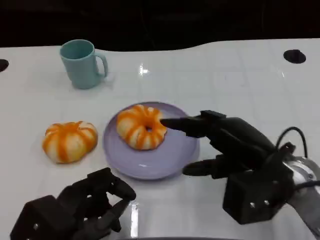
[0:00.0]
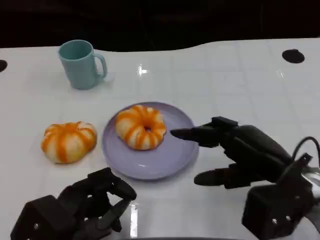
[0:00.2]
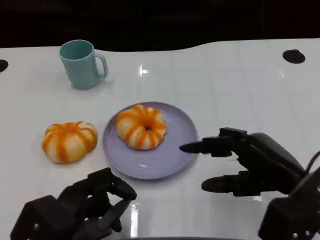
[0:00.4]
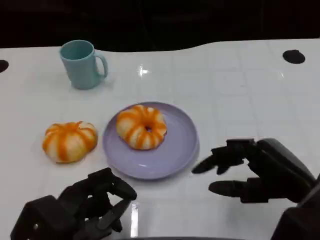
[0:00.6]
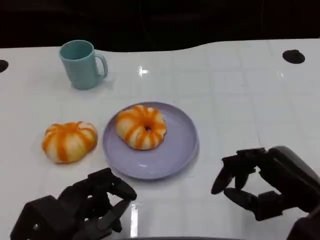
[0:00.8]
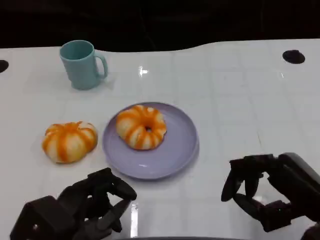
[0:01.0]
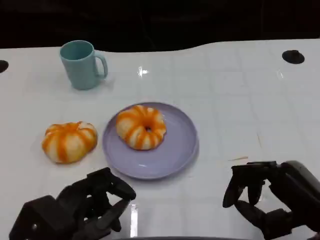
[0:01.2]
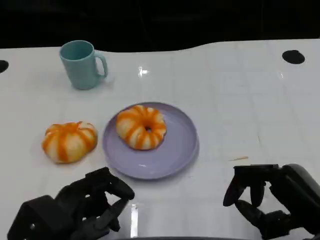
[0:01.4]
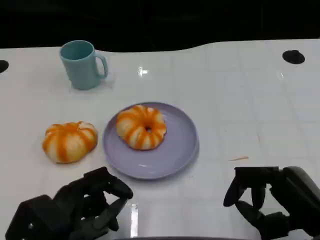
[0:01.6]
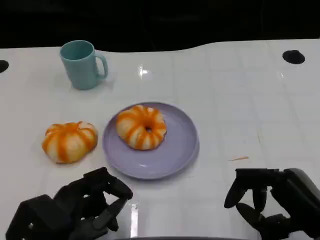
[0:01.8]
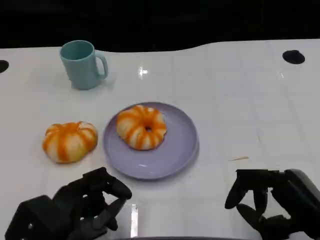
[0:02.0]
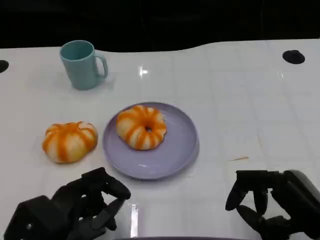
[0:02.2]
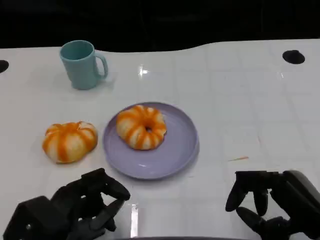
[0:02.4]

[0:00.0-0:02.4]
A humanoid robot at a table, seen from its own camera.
Task of the whole recording: Grasp the bread from the table and place it into the plate.
0:00.0 to 0:01.2: The right hand is displaced backward and to the right by approximately 10 cm.
0:01.2 to 0:02.4: The hands make only small movements.

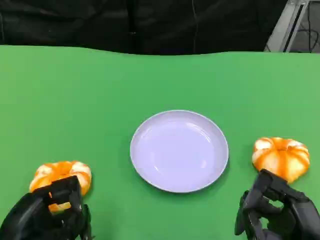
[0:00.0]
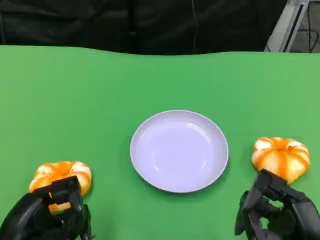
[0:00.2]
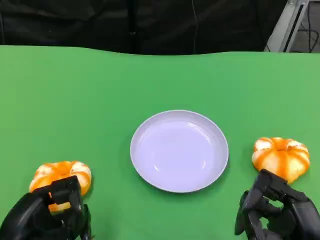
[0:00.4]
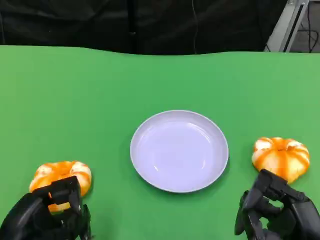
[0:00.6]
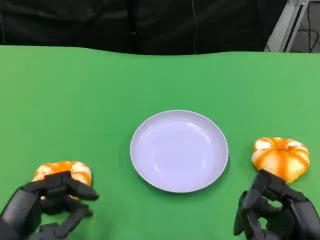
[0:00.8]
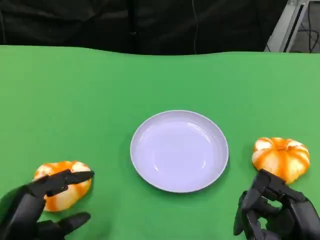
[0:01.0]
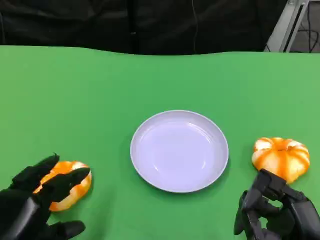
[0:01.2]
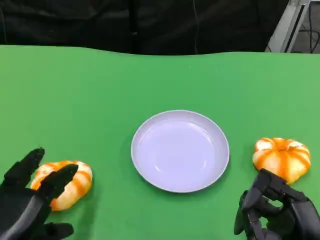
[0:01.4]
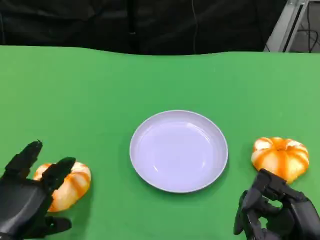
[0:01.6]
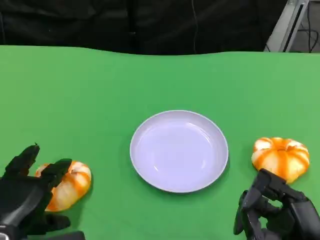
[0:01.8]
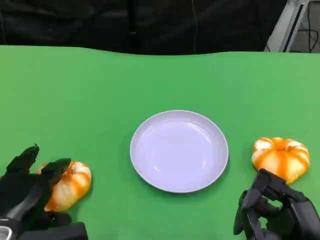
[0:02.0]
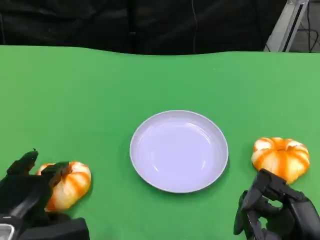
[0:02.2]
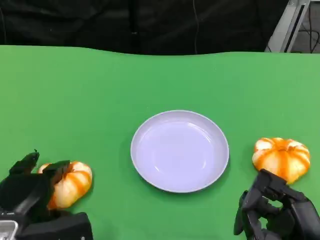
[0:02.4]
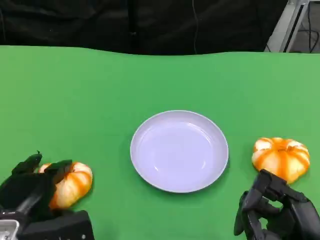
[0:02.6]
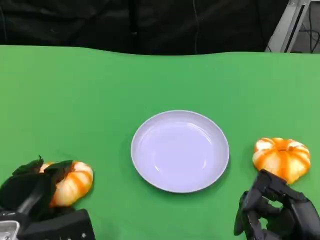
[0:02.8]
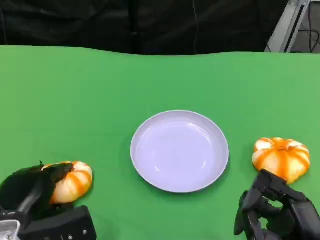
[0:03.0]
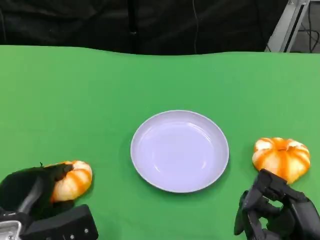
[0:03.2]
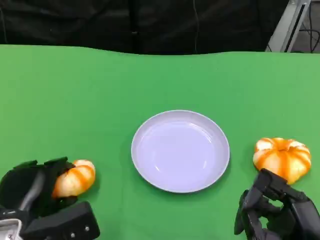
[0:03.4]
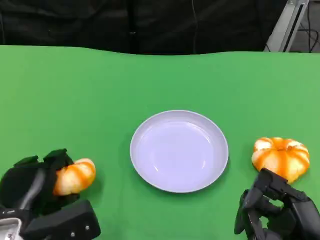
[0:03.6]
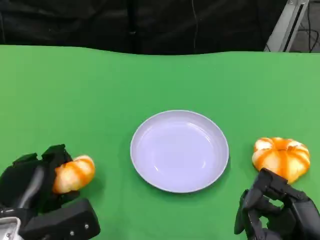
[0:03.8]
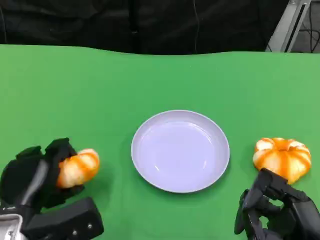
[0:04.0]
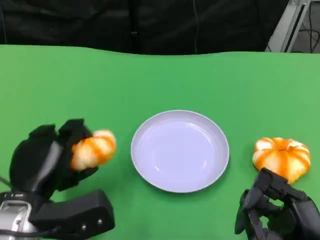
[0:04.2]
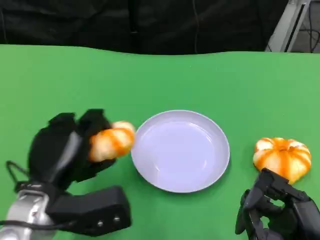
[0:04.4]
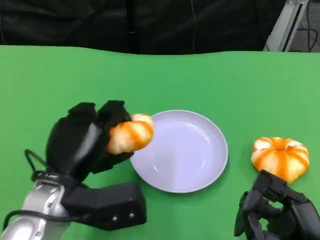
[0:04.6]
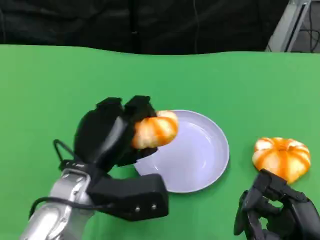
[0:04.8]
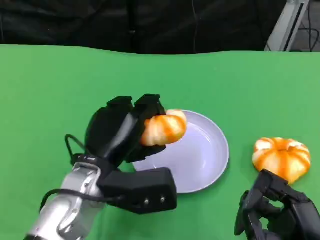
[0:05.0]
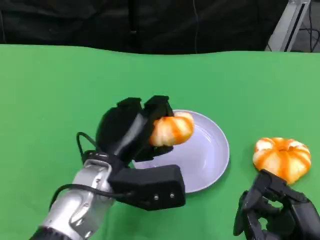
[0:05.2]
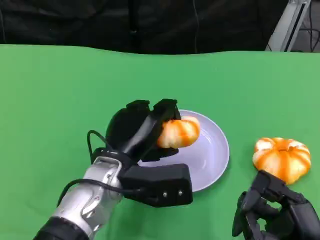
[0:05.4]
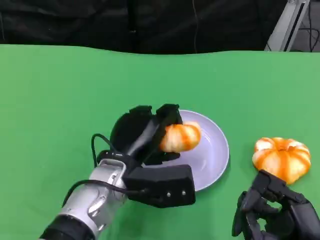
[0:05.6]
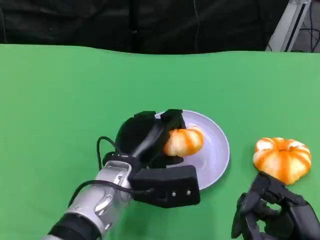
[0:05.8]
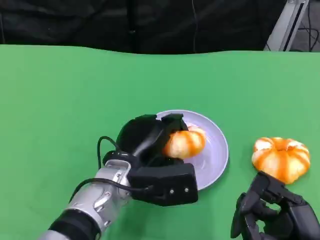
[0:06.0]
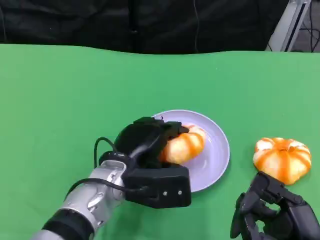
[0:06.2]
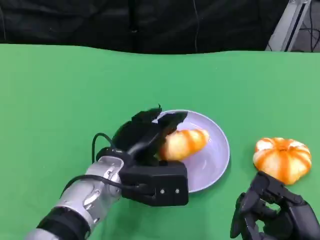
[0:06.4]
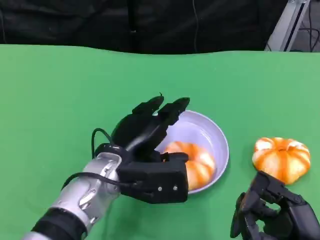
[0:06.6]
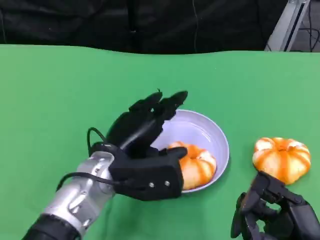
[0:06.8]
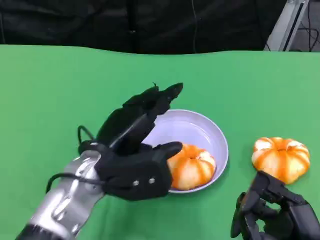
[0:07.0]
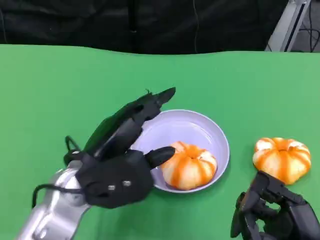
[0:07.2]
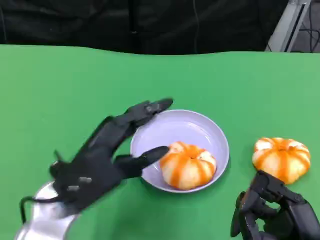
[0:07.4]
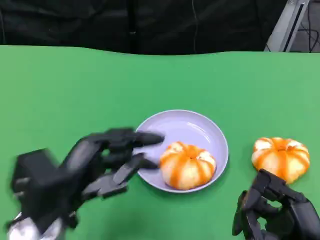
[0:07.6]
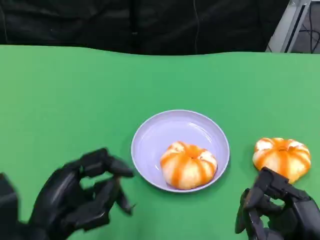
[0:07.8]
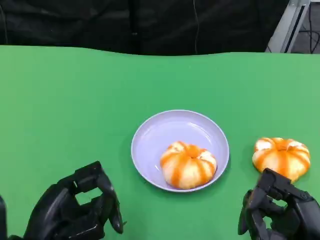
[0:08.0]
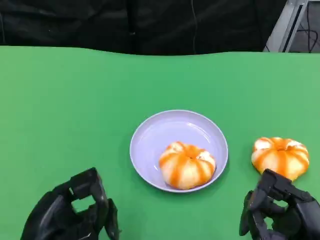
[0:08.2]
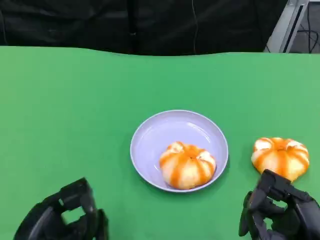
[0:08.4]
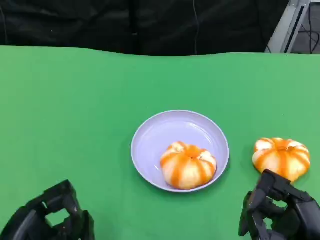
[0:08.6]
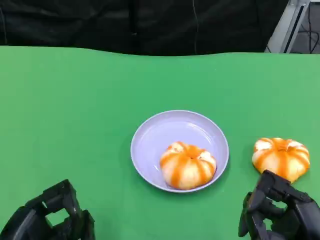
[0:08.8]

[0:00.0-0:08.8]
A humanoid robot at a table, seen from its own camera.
Task of the whole recording: Grasp the bread from the table and place it into the plate.
0:01.4 to 0:03.0: The left hand moves forward, some 5 cm.
0:03.0 to 0:04.4: The left hand heads upward and to the right, covering about 10 cm.
0:04.4 to 0:05.8: The left hand shifts about 10 cm to the right.
0:05.8 to 0:07.4: The left hand goes roughly 10 cm to the left, upward and backward.
0:07.4 to 0:08.8: The left hand goes about 15 cm backward, to the left and downward.

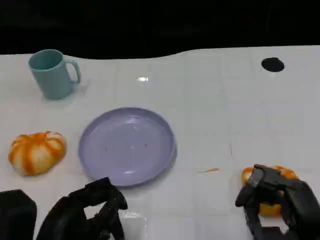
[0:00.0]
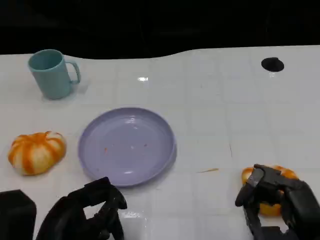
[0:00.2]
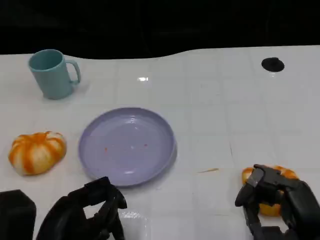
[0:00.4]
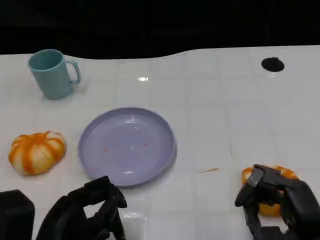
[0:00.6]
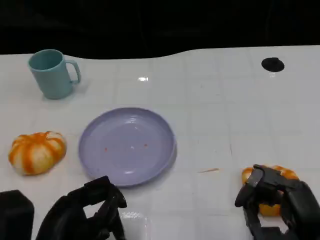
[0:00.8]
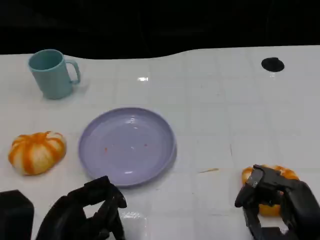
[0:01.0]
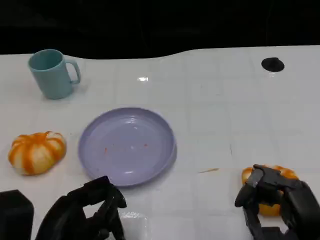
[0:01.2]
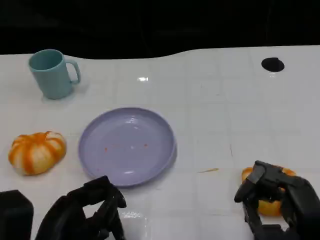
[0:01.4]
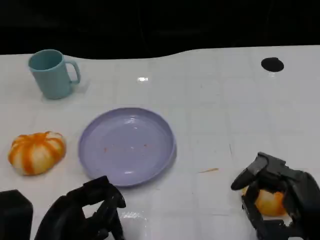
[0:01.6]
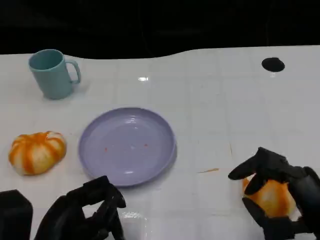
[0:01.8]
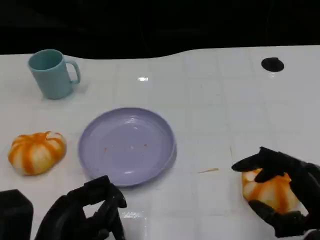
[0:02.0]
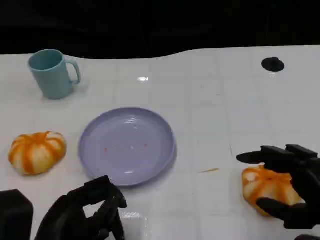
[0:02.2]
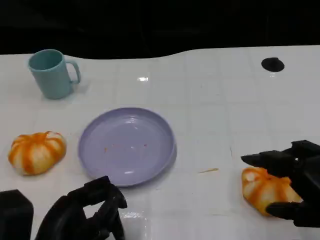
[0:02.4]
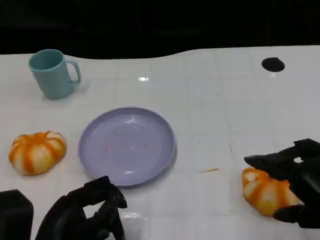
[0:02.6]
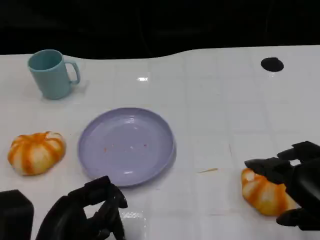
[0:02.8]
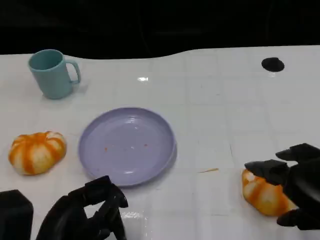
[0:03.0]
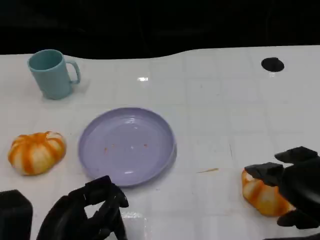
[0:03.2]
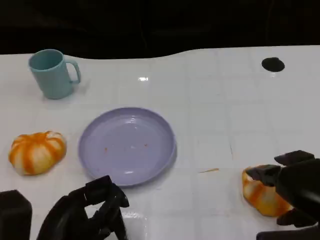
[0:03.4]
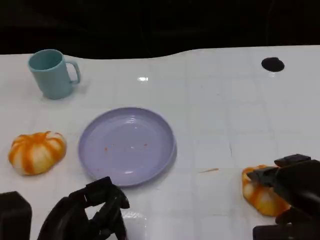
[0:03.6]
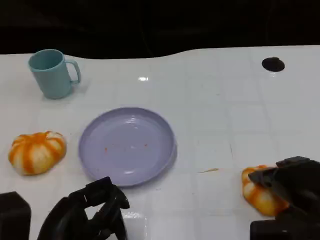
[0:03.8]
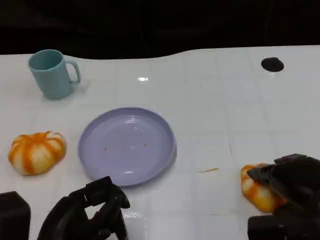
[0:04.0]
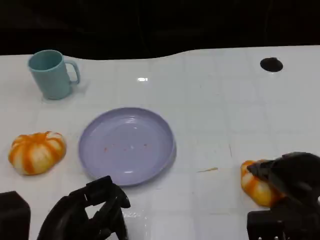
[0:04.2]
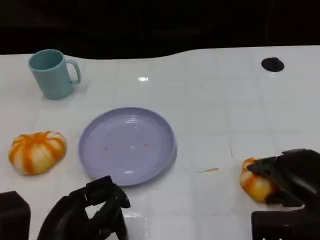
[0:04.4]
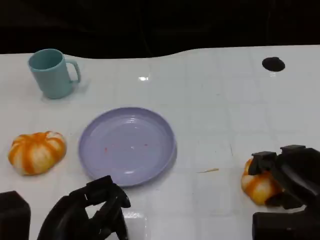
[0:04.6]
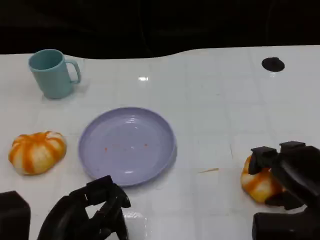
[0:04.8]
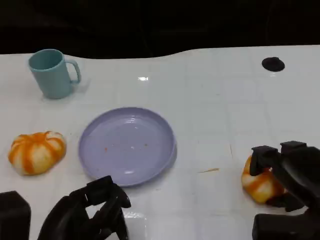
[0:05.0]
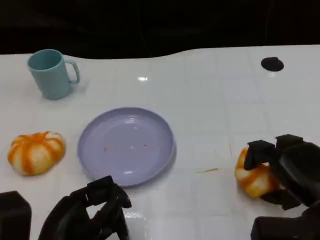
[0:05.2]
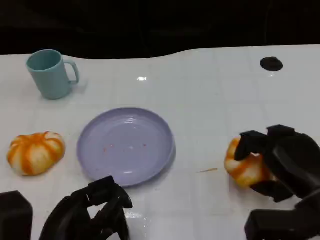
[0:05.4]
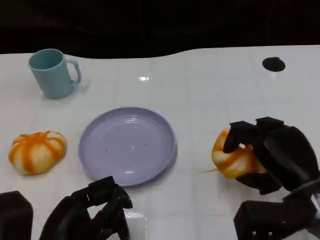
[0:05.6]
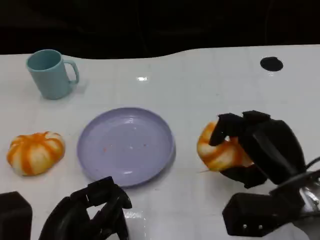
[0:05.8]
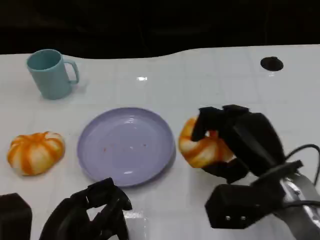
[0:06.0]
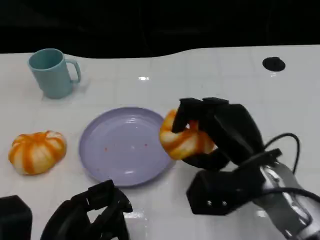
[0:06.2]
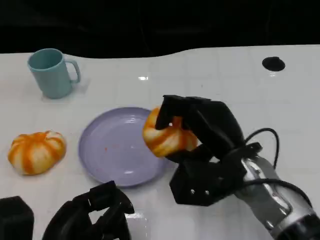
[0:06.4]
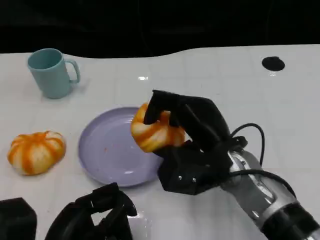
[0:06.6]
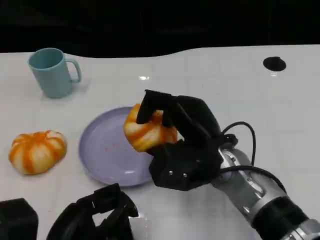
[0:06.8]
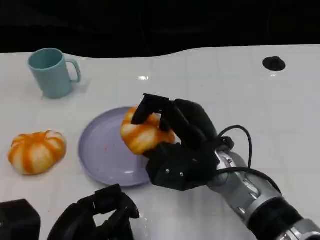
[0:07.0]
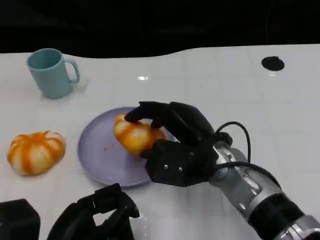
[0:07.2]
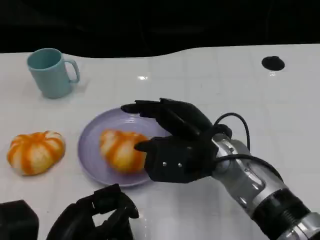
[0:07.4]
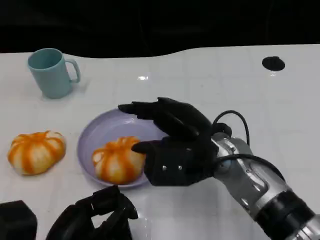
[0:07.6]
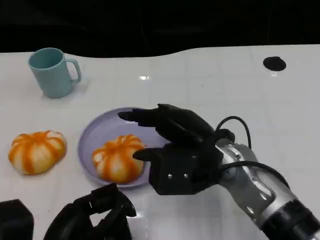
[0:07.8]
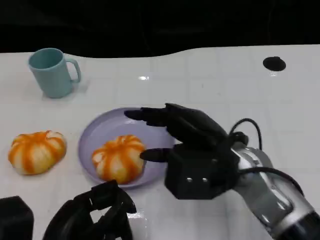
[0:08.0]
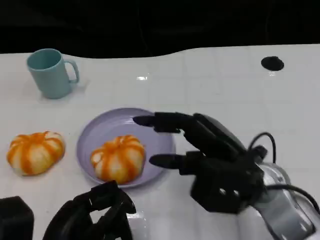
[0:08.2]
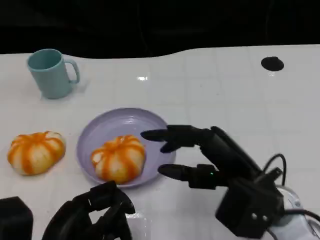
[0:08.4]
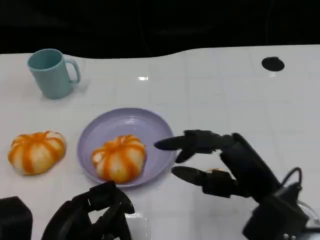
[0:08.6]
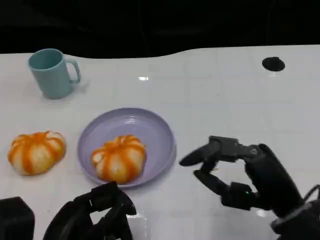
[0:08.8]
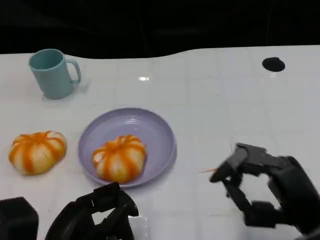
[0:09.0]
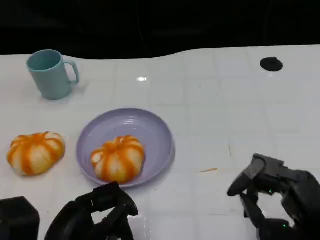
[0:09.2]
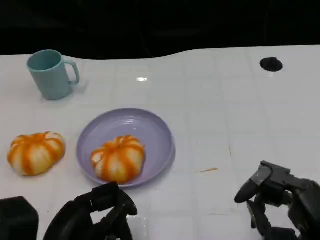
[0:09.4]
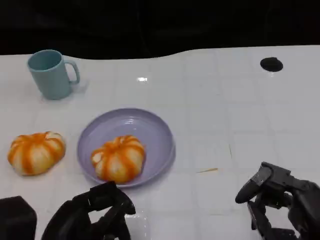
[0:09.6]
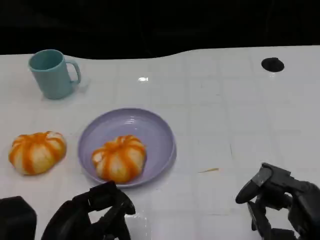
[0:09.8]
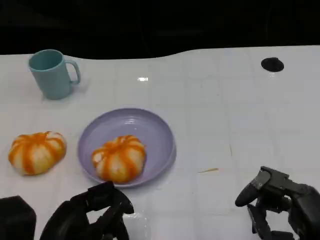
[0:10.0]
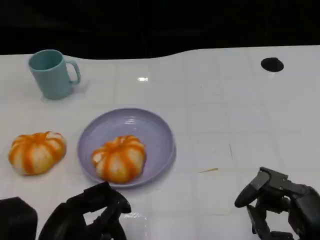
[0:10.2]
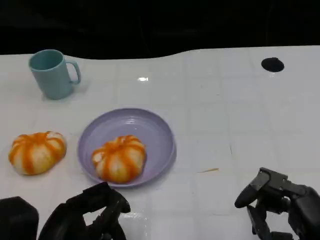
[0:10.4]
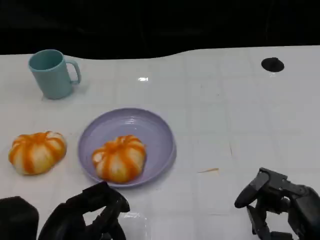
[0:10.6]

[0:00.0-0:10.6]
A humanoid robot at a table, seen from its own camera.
Task of the whole recording: Grasp the bread from the table and place it into the plate.
0:00.0 to 0:01.6: There are only small adjustments of the hands.
0:01.6 to 0:03.0: The right hand moves upward, approximately 5 cm.
0:03.0 to 0:04.6: The right hand heads downward and forward, covering some 10 cm.
0:04.6 to 0:06.0: The right hand travels to the left by some 10 cm.
0:06.0 to 0:07.6: The right hand shifts some 10 cm to the left.
0:07.6 to 0:09.0: The right hand goes roughly 20 cm to the right and backward.
0:09.0 to 0:10.6: The hands stay close to where they were, moving slightly.
